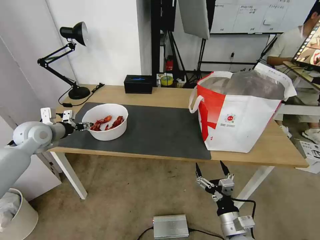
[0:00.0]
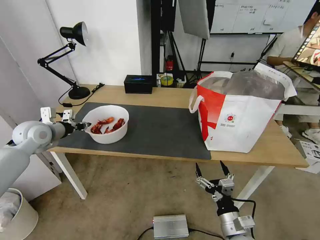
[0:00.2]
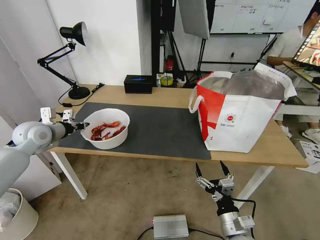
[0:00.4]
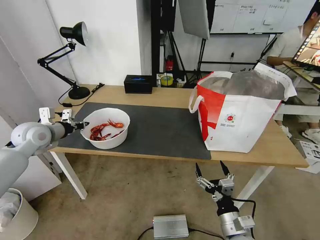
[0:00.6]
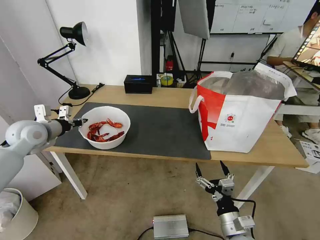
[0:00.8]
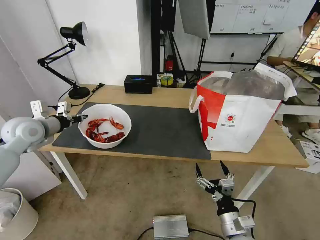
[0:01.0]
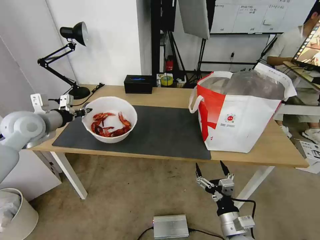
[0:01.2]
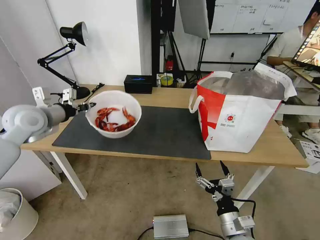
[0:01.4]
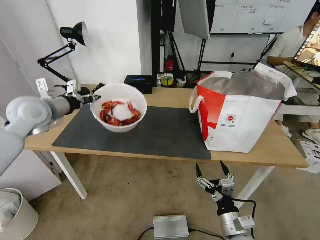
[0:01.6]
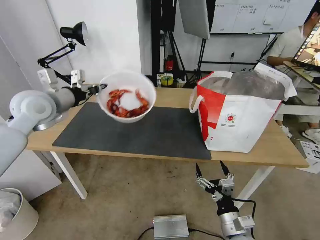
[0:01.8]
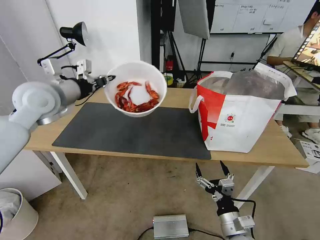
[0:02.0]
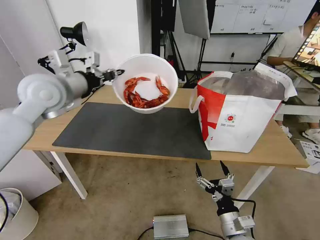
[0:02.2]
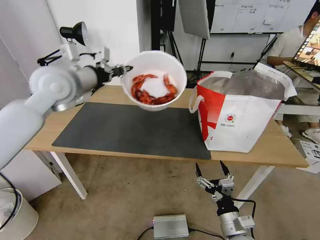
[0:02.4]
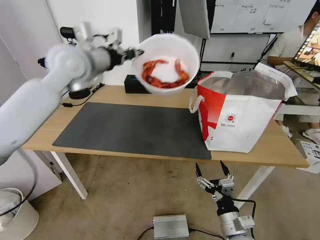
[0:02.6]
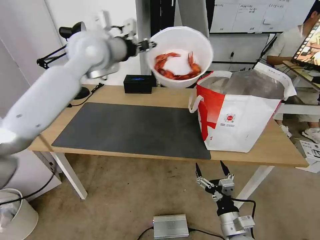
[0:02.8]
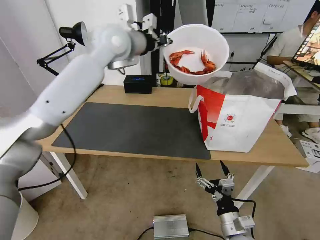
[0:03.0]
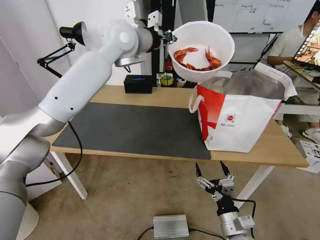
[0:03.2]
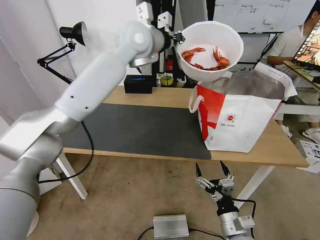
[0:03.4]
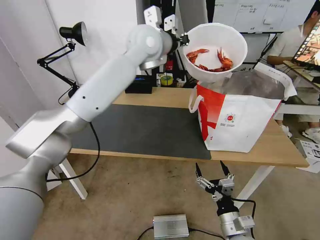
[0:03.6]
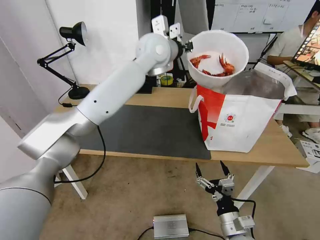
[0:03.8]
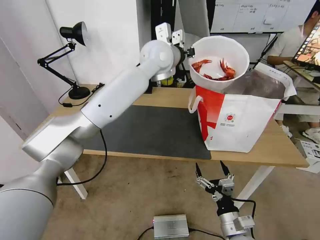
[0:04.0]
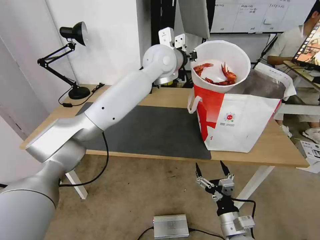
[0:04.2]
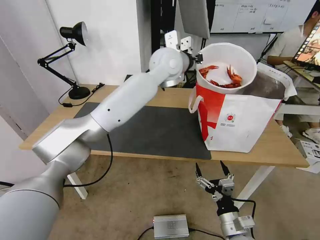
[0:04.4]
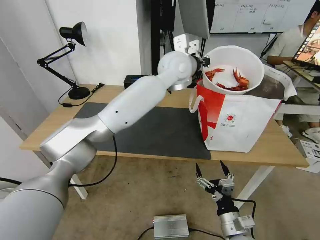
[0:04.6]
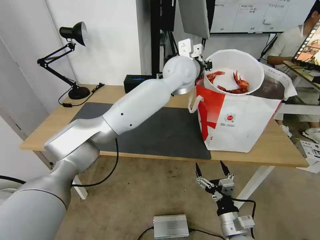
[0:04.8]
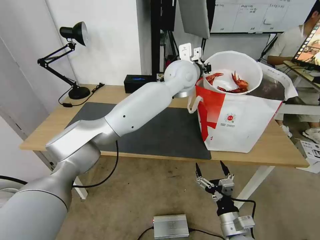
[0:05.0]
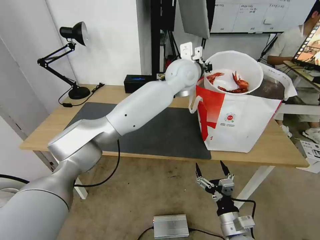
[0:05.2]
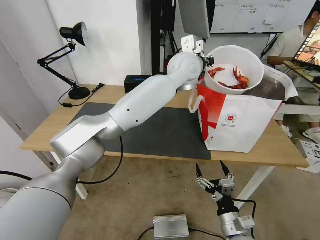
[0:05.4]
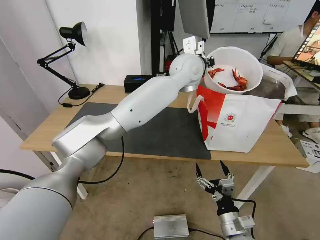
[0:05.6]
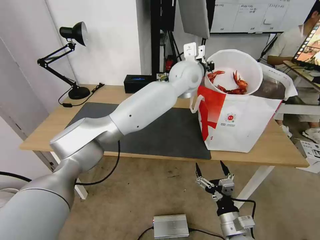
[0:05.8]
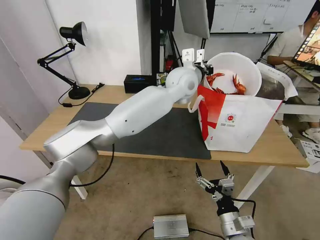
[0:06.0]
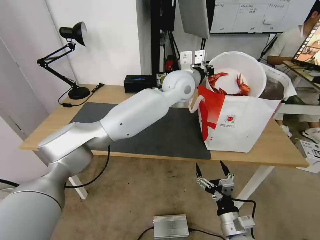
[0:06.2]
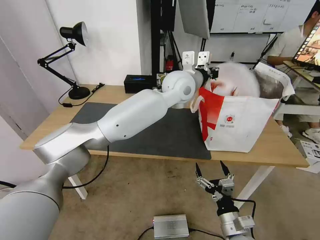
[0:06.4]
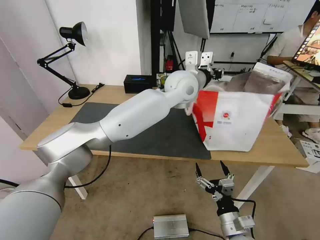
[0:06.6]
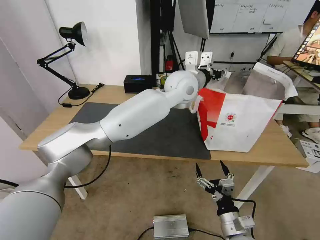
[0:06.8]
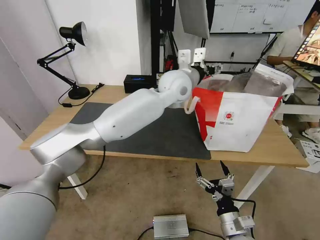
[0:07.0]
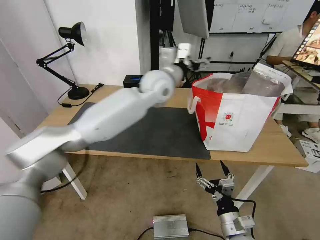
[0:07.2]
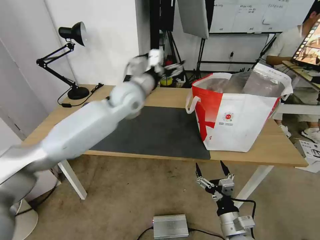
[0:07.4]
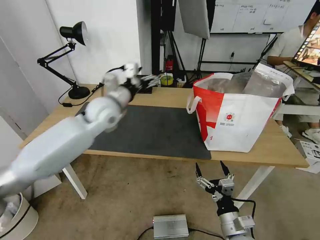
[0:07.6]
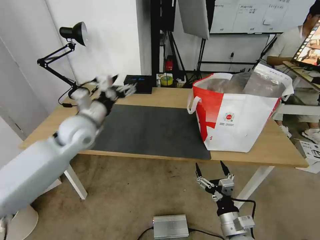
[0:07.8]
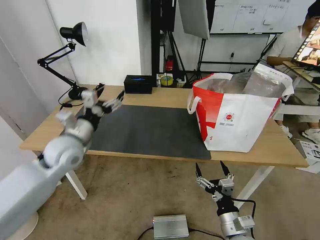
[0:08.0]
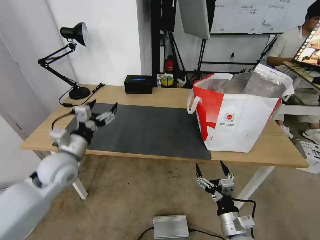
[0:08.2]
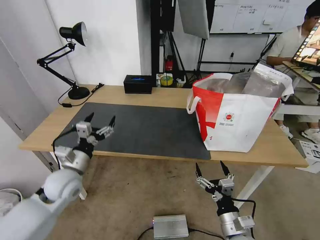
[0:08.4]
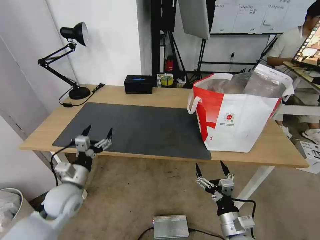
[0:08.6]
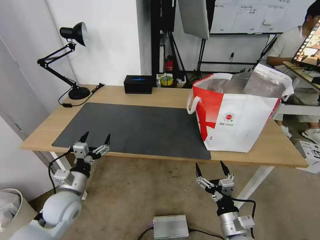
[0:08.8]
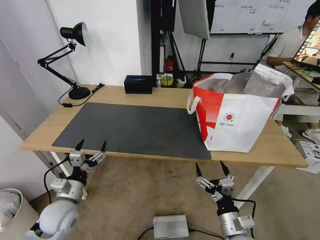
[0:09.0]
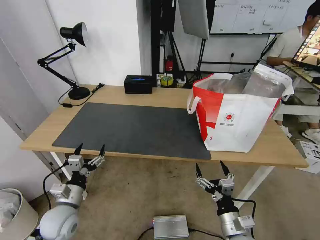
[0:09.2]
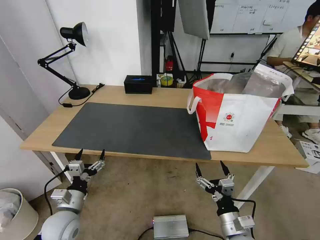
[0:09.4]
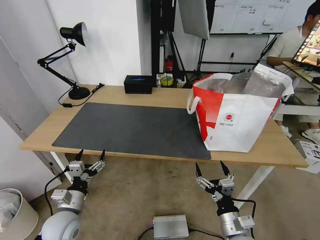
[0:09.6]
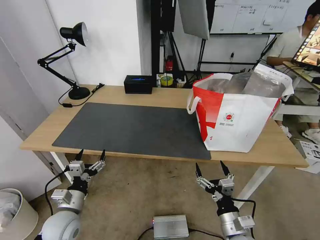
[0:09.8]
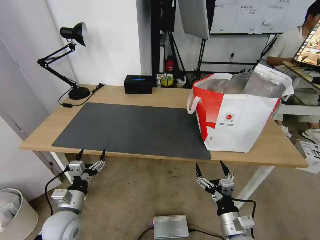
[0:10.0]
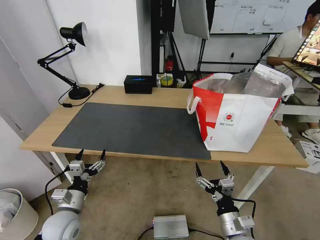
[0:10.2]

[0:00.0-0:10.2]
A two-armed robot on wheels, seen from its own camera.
Task of the whole recording: Pick up the trash from the table and place it into the takeout bag.
0:00.0 to 0:01.4: The left gripper shifts about 10 cm upward, and closes up.
0:01.4 to 0:03.0: The left gripper goes about 30 cm to the right, upward and forward.
0:03.0 to 0:04.4: The left gripper is displaced to the right and downward by about 15 cm.
0:04.4 to 0:05.8: The left gripper shifts roughly 5 cm to the right.
0:05.8 to 0:07.2: The left gripper shifts some 10 cm to the left, and opens up.
0:07.2 to 0:08.8: The left gripper travels downward, to the left and backward by some 40 cm.
0:08.8 to 0:10.2: The left gripper ends up about 5 cm from where it was.

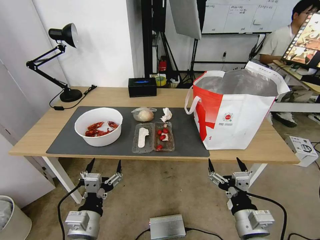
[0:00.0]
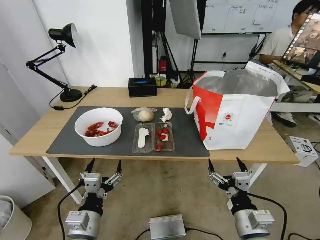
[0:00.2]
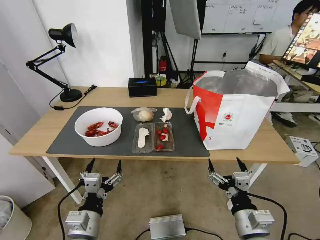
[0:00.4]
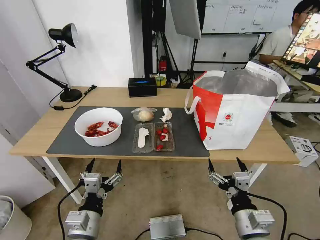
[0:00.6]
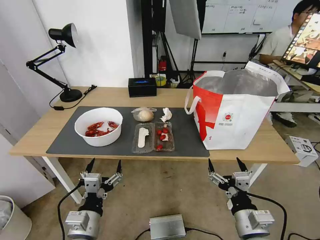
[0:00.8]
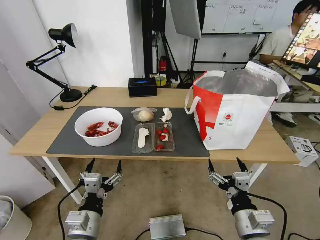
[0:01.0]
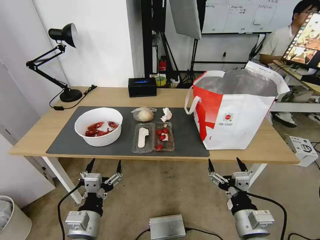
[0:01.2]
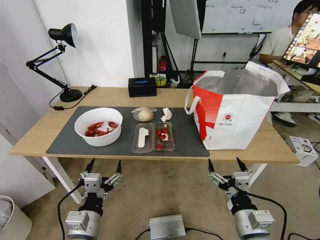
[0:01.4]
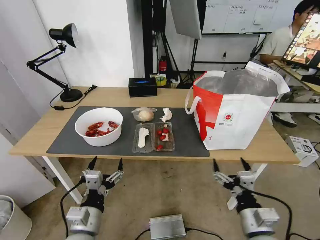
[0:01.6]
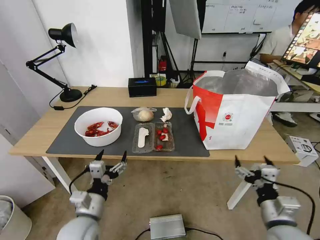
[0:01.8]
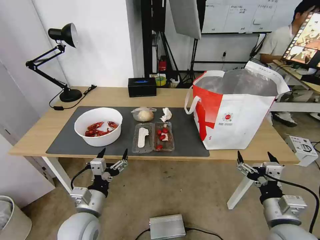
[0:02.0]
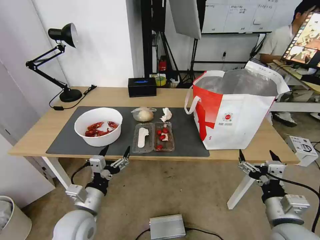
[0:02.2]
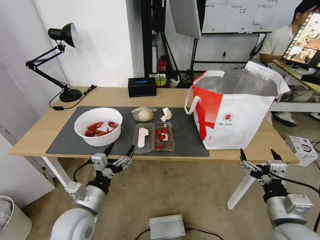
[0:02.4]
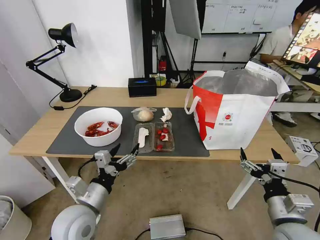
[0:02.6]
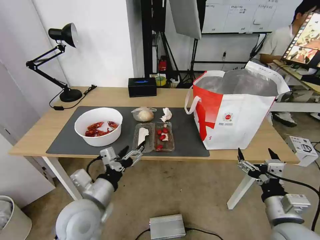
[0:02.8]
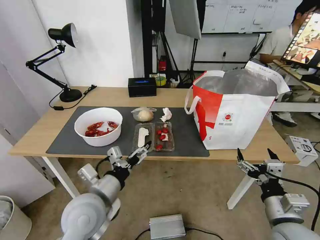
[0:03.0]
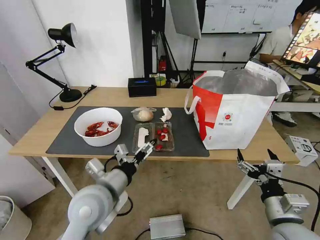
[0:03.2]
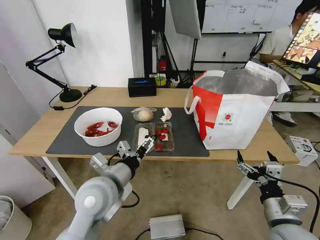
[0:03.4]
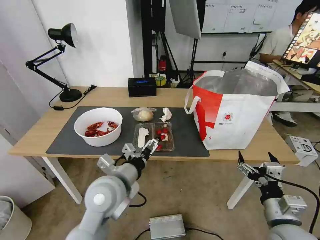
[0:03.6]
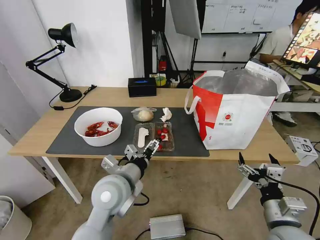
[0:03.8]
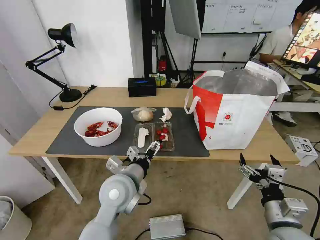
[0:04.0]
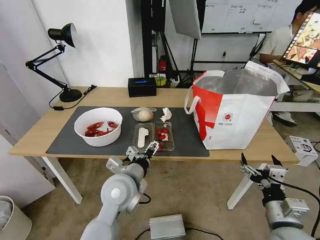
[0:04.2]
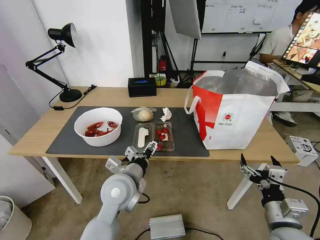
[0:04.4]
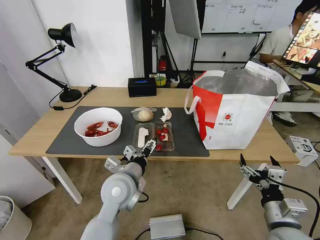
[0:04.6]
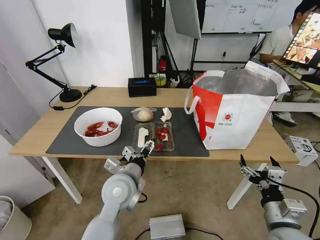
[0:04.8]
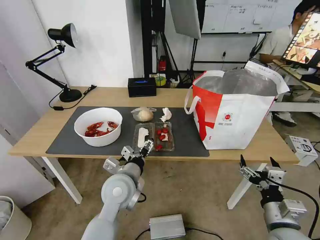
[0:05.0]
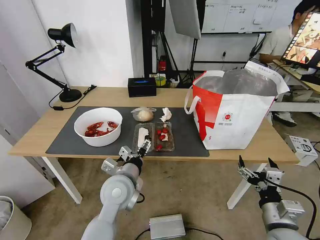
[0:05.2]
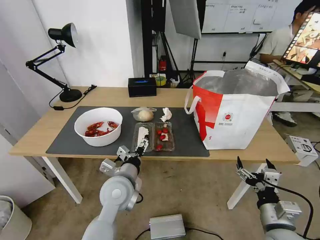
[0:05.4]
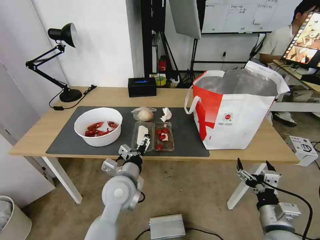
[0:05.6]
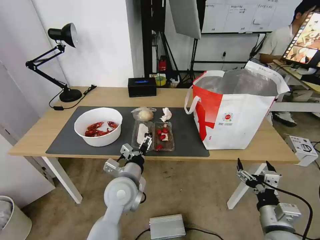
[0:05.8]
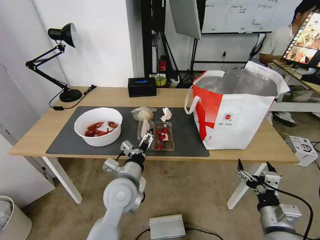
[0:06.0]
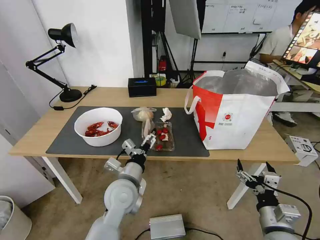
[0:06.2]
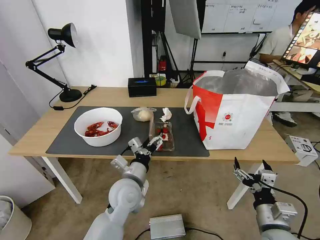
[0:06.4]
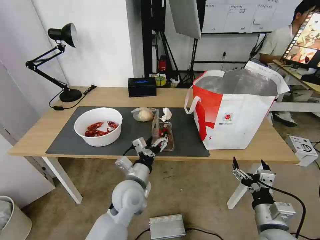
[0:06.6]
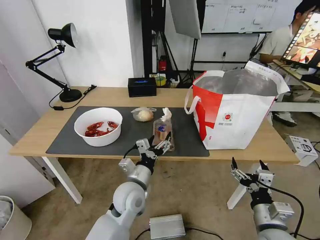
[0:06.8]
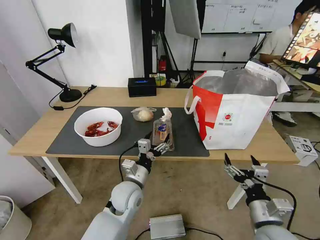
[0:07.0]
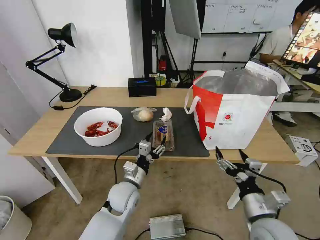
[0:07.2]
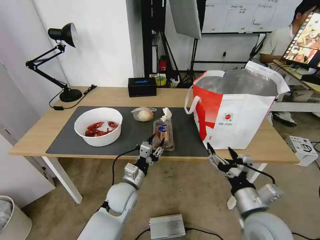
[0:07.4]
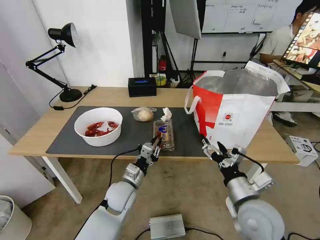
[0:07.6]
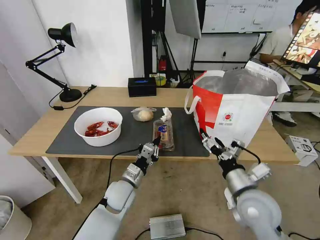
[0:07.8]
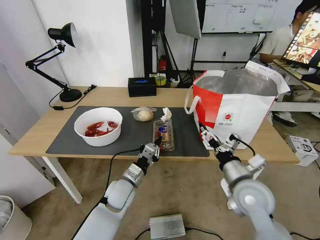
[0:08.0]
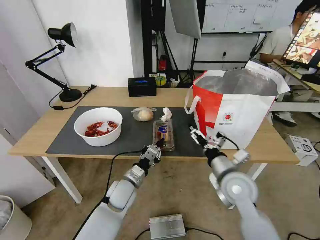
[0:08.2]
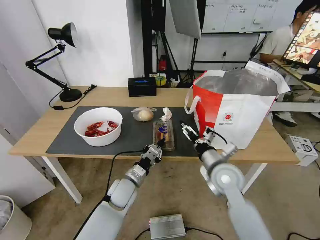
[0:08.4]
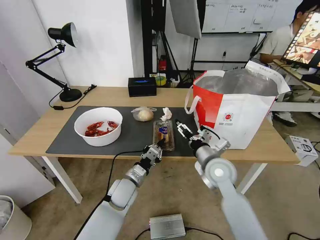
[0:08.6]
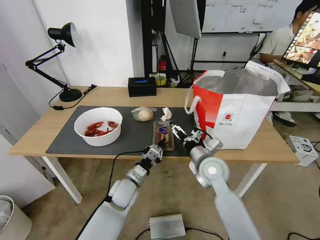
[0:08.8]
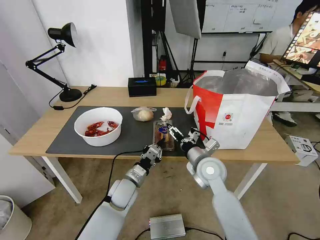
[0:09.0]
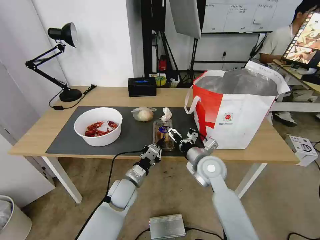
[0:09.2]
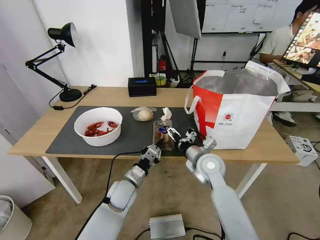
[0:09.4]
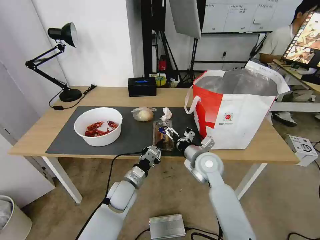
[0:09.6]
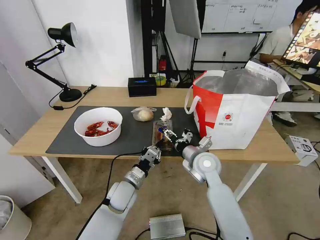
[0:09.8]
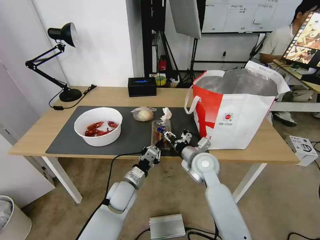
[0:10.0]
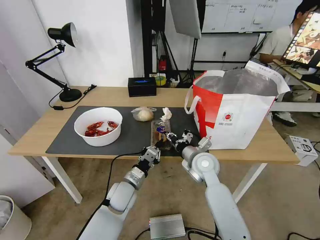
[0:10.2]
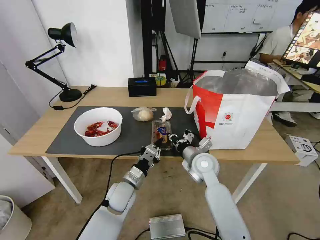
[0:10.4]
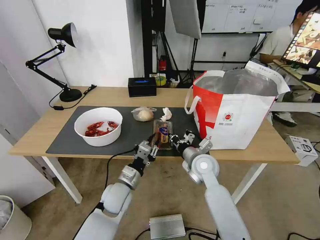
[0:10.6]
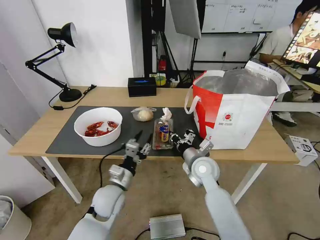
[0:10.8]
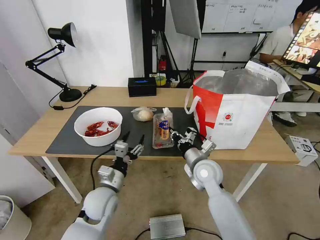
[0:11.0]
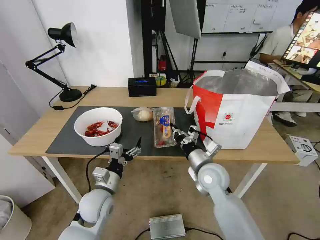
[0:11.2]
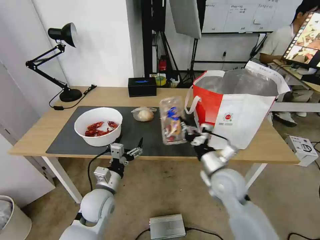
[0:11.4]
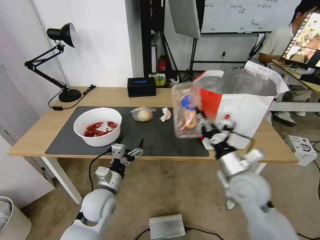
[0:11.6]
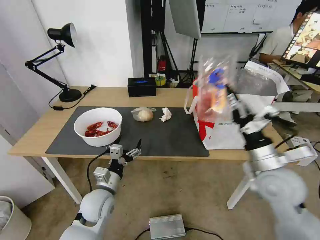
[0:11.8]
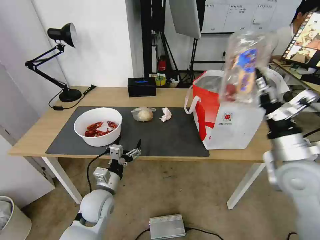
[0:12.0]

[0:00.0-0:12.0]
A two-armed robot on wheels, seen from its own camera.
Task of the whole recording: Pick up the trash from the table and place it into the takeout bag.
0:01.6 to 0:03.0: The right gripper ends up about 5 cm from where it was, while the left gripper travels upward and forward by roughly 10 cm.
0:03.0 to 0:04.4: The left gripper goes roughly 10 cm to the right and forward.
0:04.4 to 0:06.0: There are only small adjustments of the grippers.
0:06.0 to 0:07.6: The left gripper shifts about 10 cm downward, and closes its fingers; the right gripper is displaced to the left, upward and forward by approximately 10 cm.
0:07.6 to 0:09.0: The right gripper moves forward and to the left, approximately 15 cm.
0:09.0 to 0:10.4: The right gripper closes its fingers.
0:10.4 to 0:12.0: The left gripper goes about 5 cm to the left, and opens, while the right gripper travels to the right, upward and backward by approximately 25 cm.
